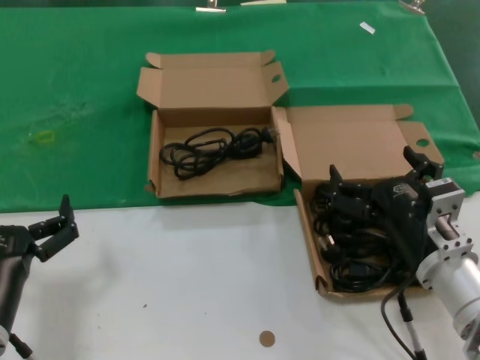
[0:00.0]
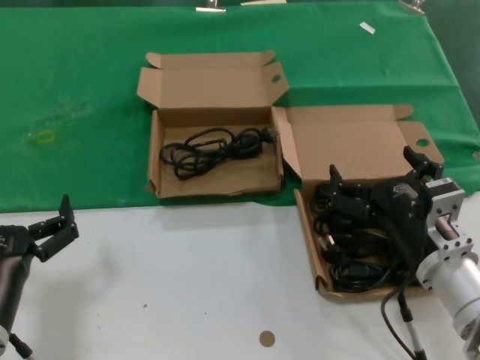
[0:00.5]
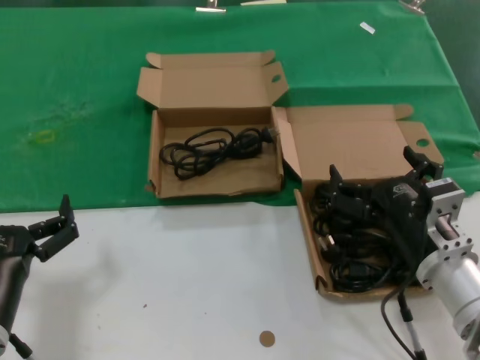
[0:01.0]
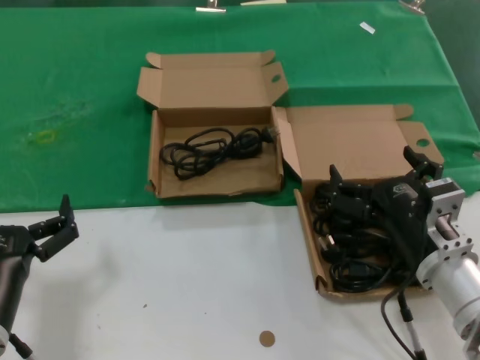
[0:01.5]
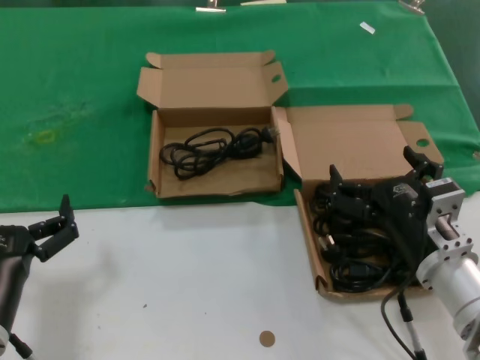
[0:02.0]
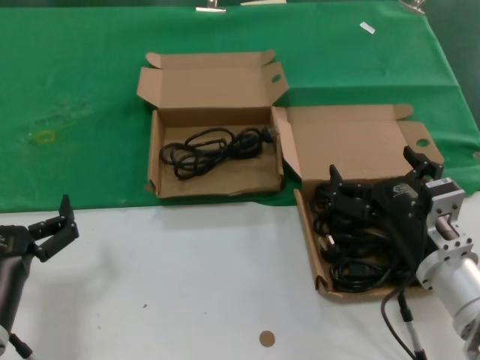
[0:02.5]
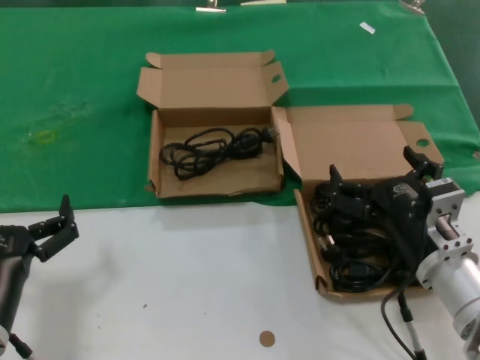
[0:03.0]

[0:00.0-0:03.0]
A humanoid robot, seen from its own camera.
Task of the whole recording: take the parts from the box containing them and put them into an empty box.
0:00.0 to 0:03.0: Neither hand changes place.

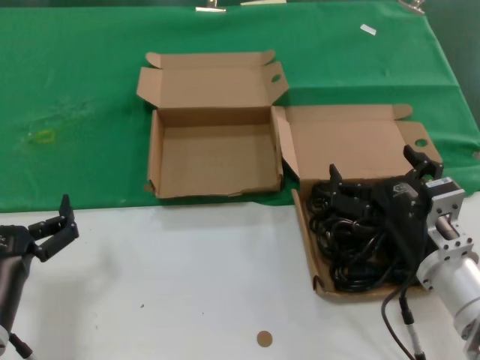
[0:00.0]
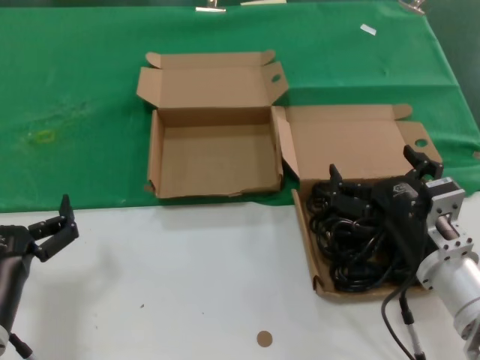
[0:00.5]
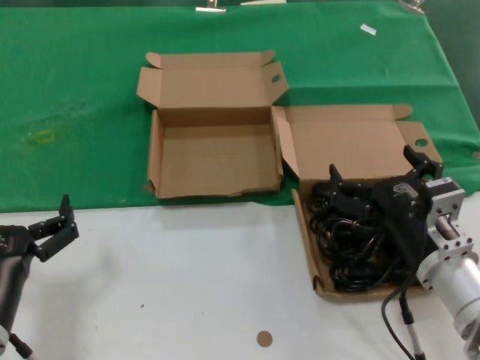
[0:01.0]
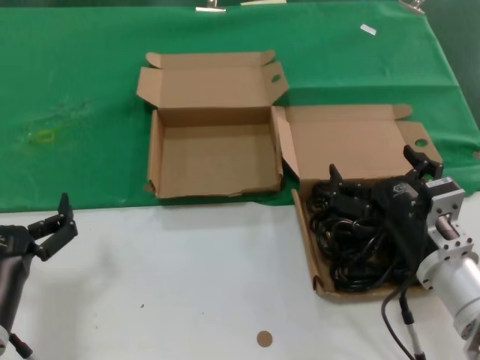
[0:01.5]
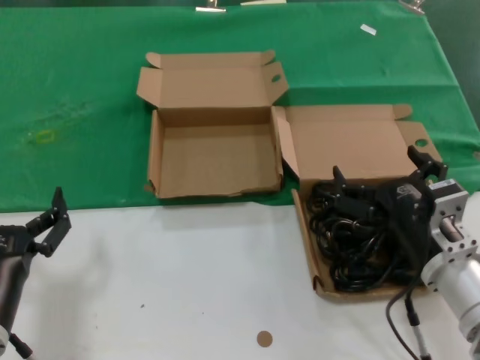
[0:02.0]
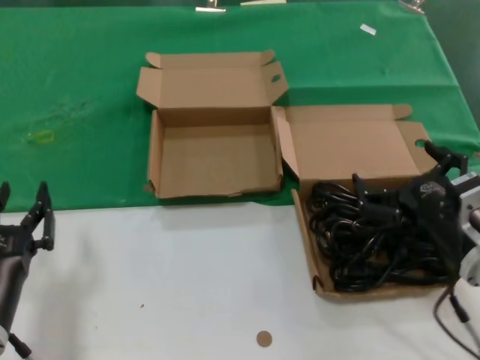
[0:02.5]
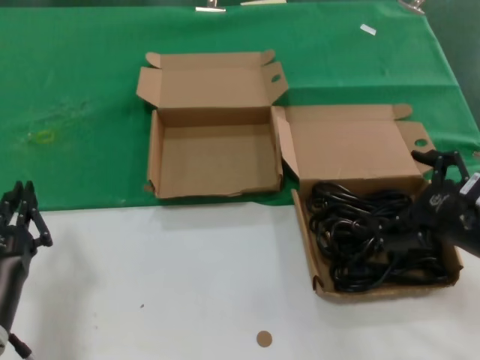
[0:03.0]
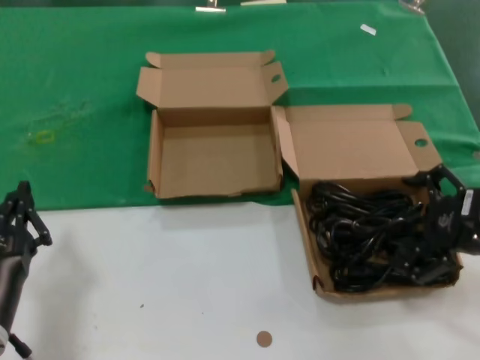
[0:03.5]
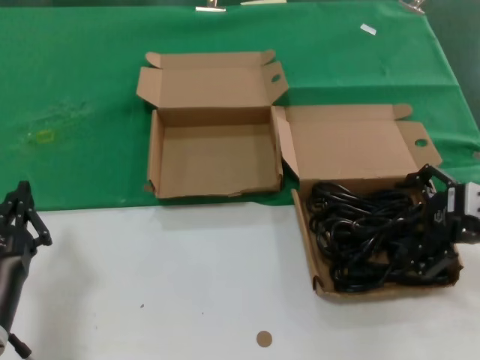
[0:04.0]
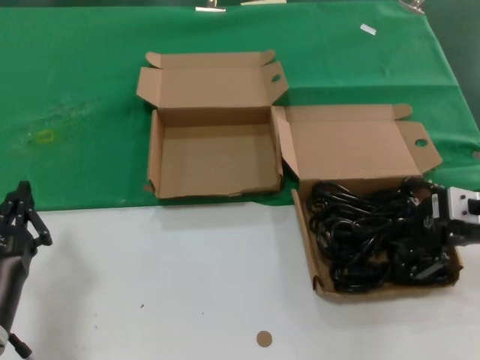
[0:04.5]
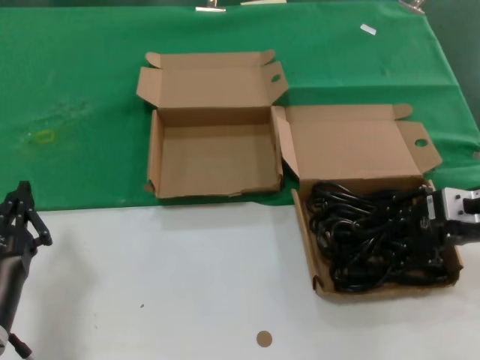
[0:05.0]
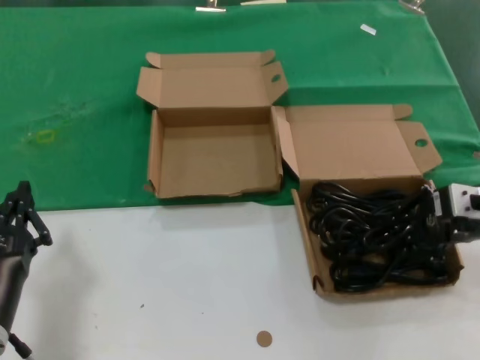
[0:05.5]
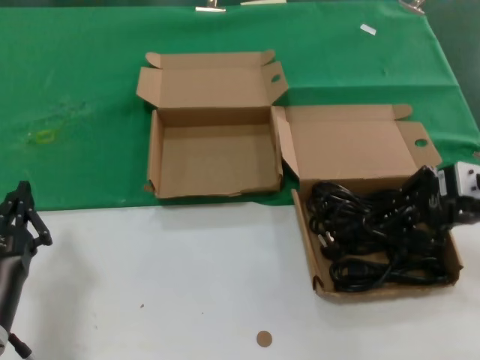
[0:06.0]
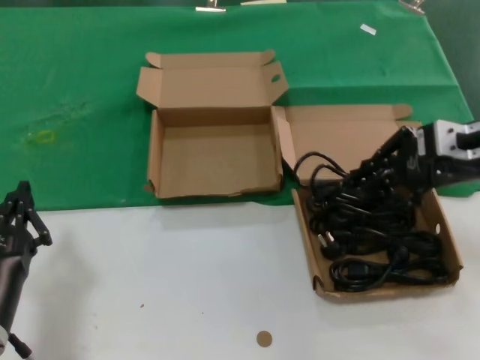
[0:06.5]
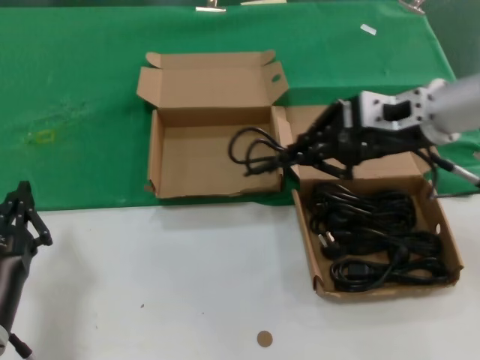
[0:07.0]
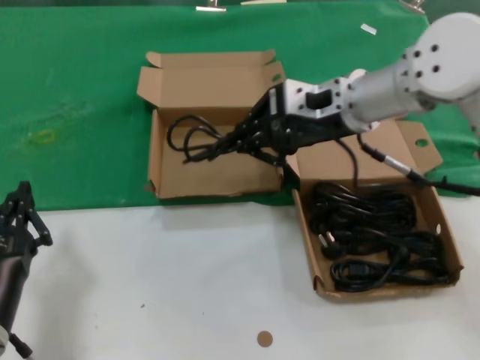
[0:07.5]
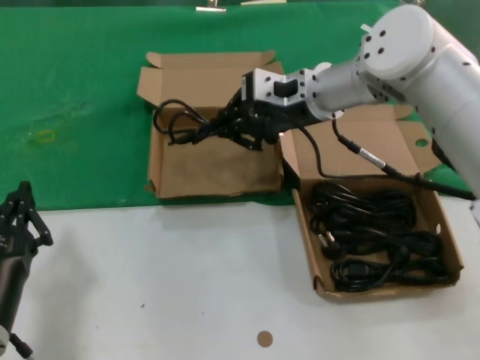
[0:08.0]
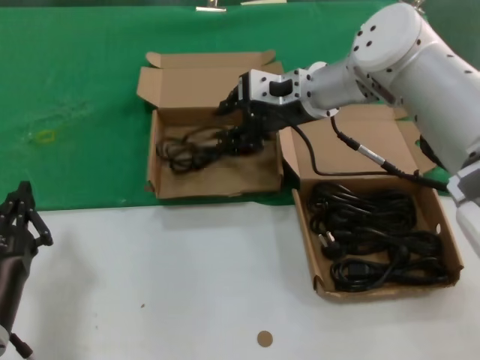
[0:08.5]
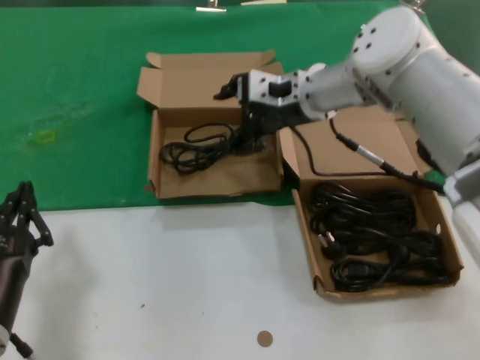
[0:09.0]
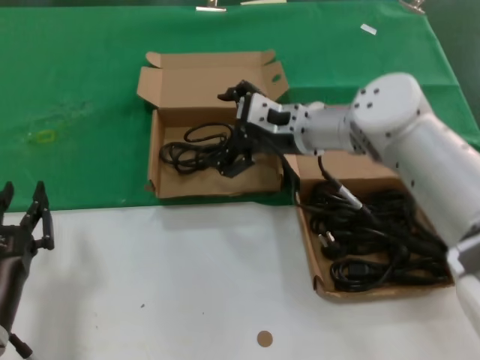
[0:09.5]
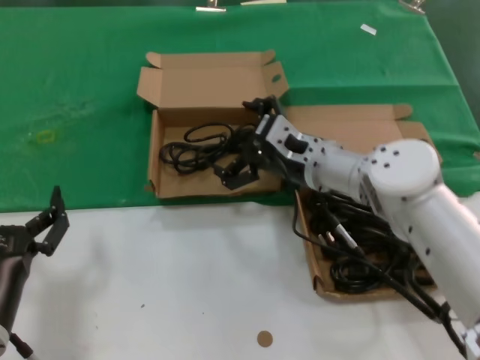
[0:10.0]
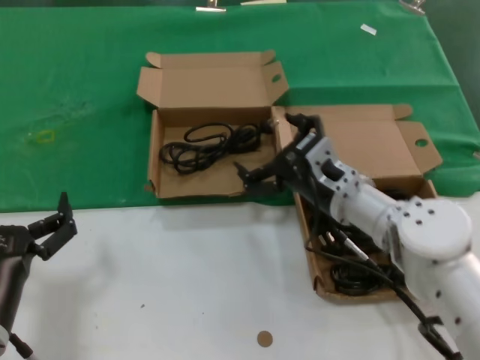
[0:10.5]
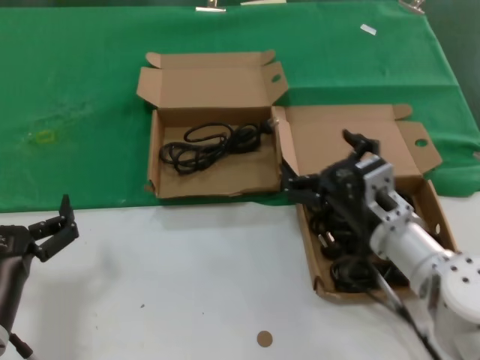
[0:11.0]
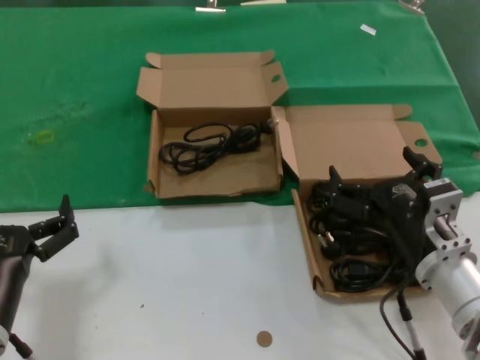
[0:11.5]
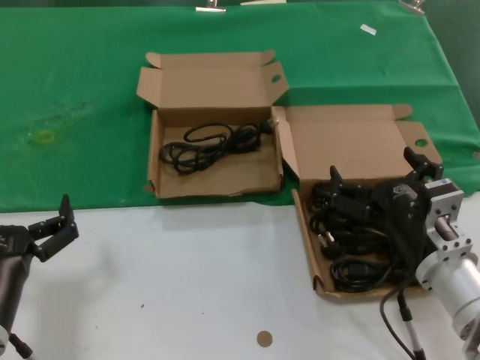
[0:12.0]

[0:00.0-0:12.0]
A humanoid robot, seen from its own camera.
Task of the whole recording: take the parts from the box containing them and put them into an empty box.
Step, 0:00.0 to 0:05.0: Grasp the data cable.
Step, 0:05.5 to 0:08.5: Place the data cable in the another box.
0:00.0 to 0:02.0: Neither hand changes place.
0:02.0 to 0:04.0: The right hand travels to the right, upward and forward by approximately 20 cm.
0:04.0 to 0:06.0: The right hand changes place by about 5 cm.
0:06.0 to 0:08.0: The right hand shifts about 25 cm to the left and forward.
0:08.0 to 0:10.0: The right hand travels downward by roughly 15 cm.
0:10.0 to 0:12.0: The right hand shifts roughly 20 cm backward and to the right.

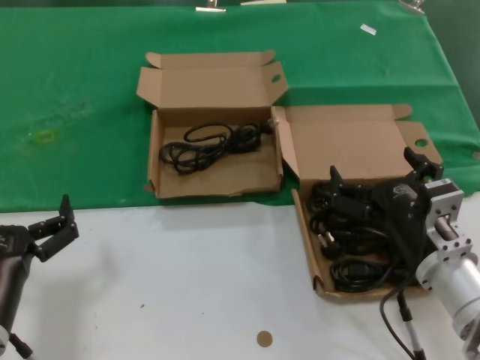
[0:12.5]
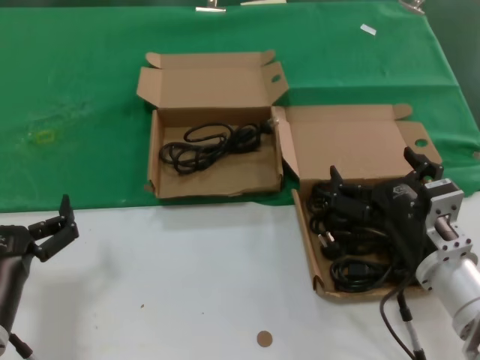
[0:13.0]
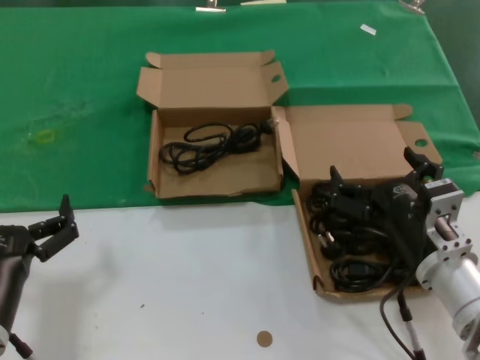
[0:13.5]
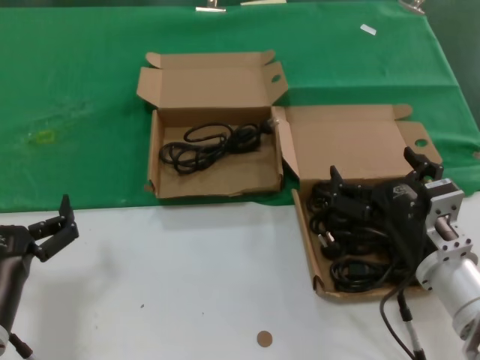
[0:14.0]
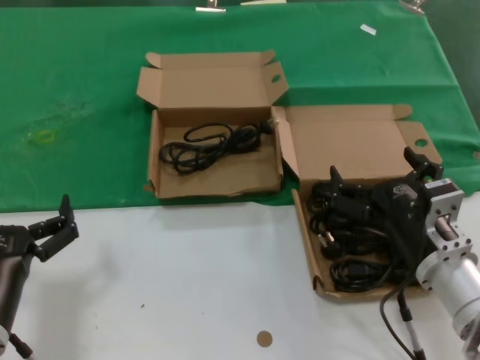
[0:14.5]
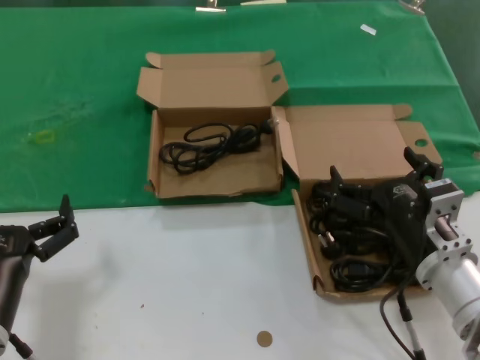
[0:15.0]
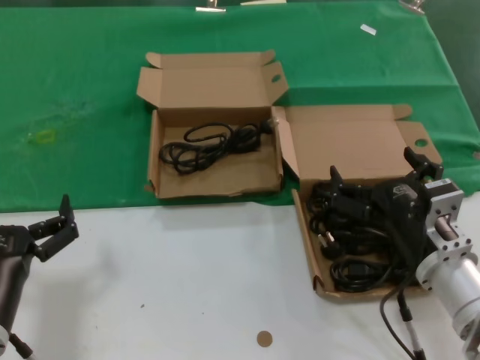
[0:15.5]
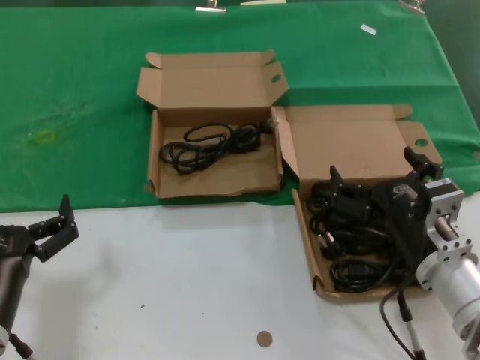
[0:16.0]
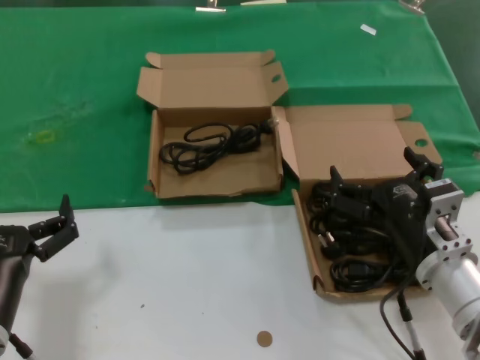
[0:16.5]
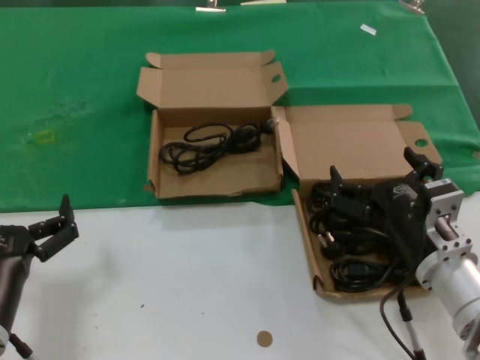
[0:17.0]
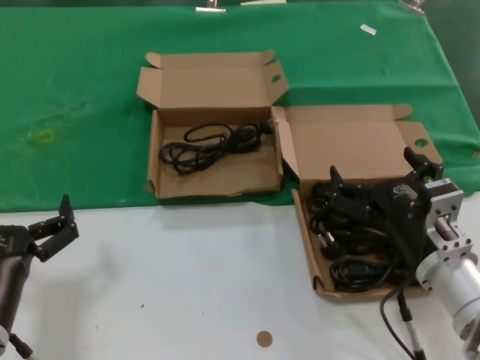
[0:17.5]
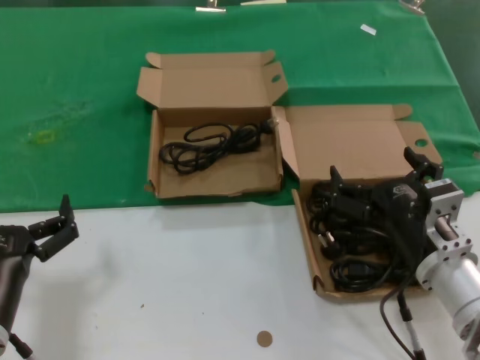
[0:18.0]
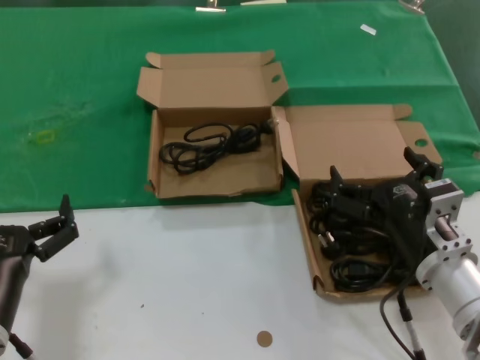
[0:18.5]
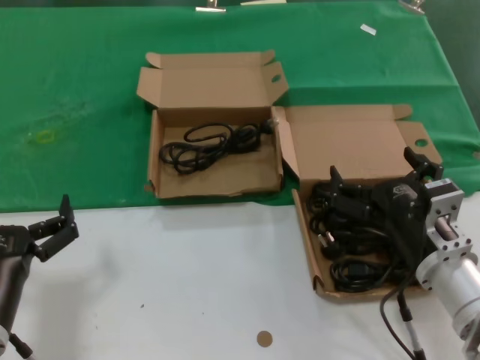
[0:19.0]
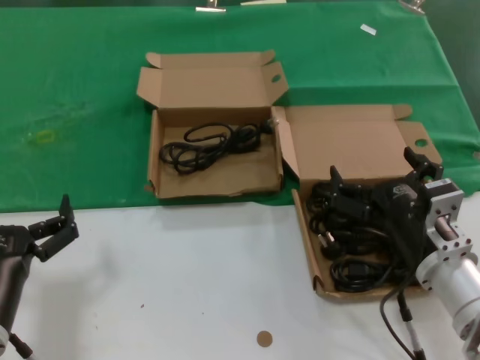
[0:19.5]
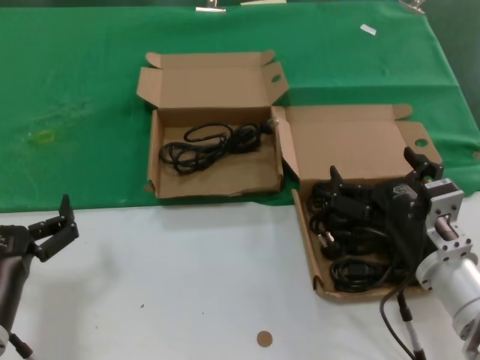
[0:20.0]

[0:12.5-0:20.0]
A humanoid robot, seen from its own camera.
Task of the whole recording: take the parts from the box containing them and put them into an empty box.
0:12.5 to 0:20.0: The two hands keep their place.
